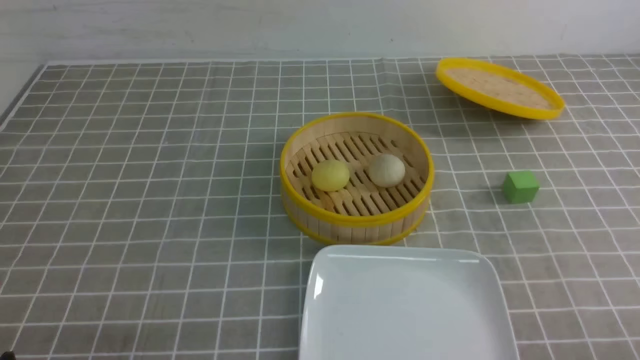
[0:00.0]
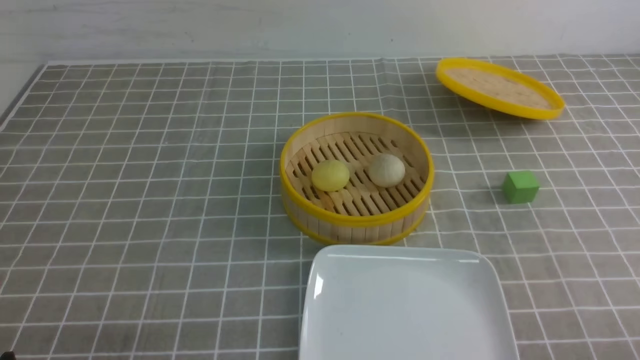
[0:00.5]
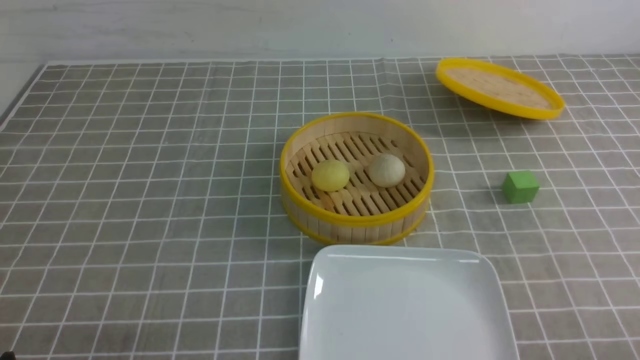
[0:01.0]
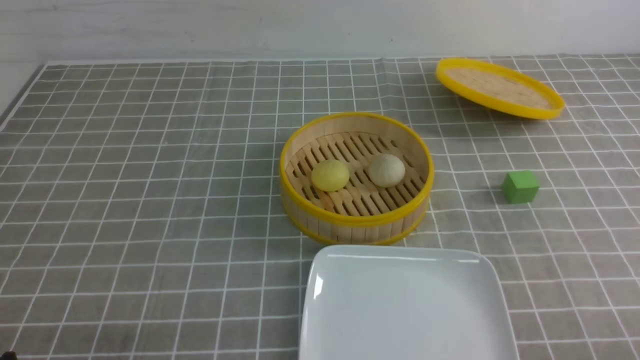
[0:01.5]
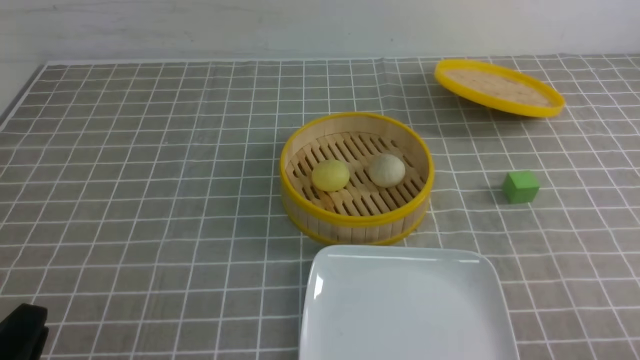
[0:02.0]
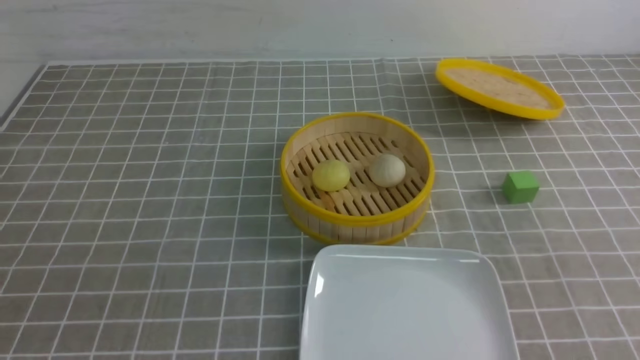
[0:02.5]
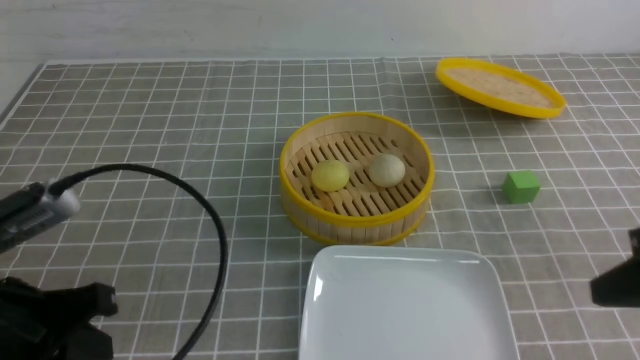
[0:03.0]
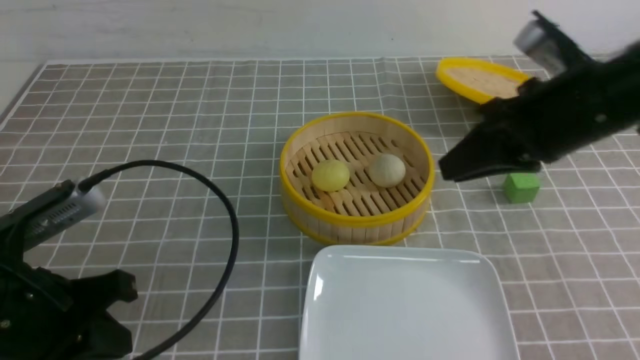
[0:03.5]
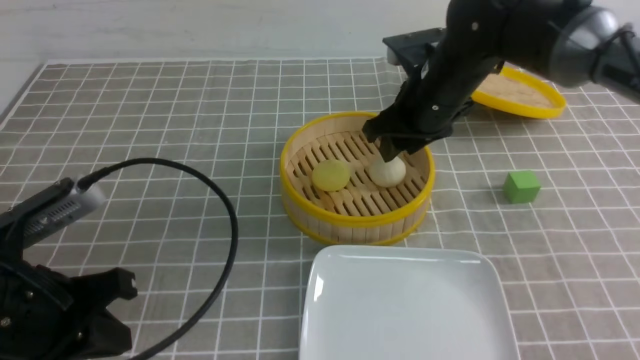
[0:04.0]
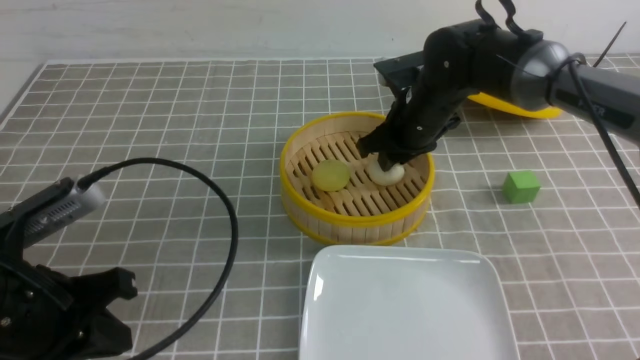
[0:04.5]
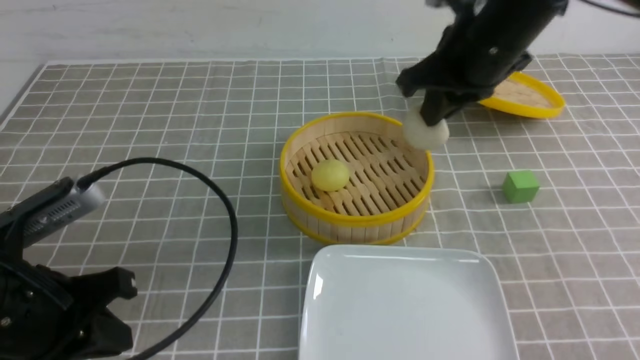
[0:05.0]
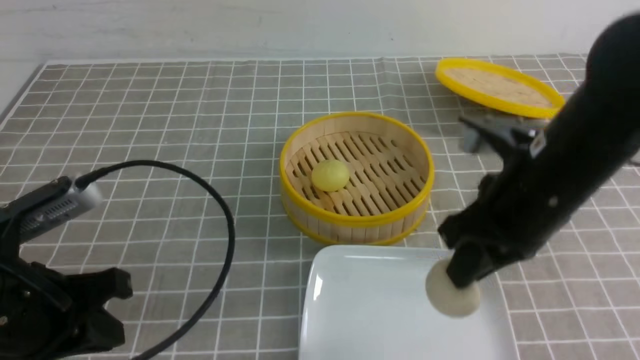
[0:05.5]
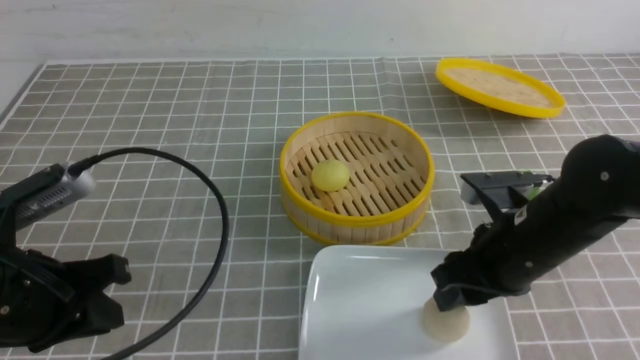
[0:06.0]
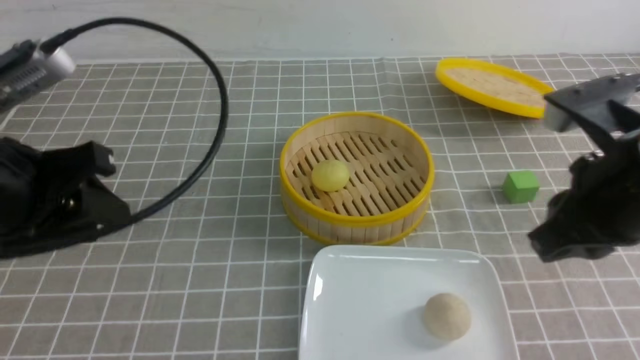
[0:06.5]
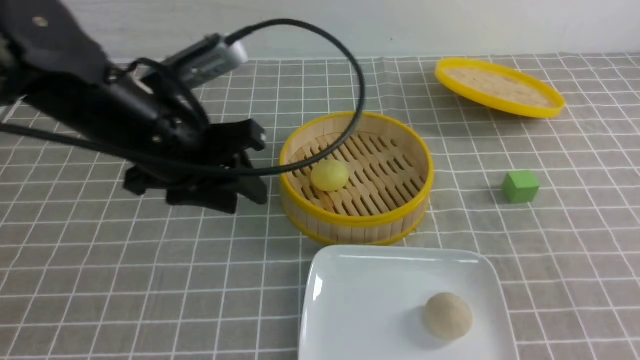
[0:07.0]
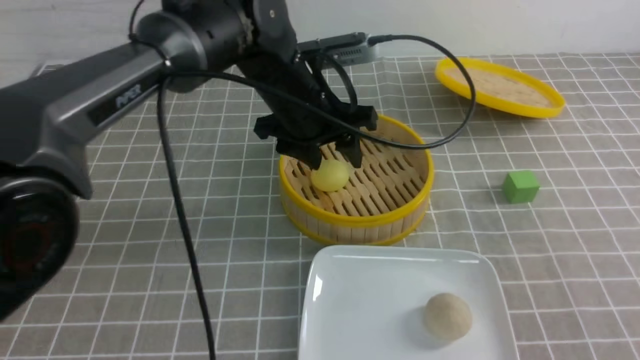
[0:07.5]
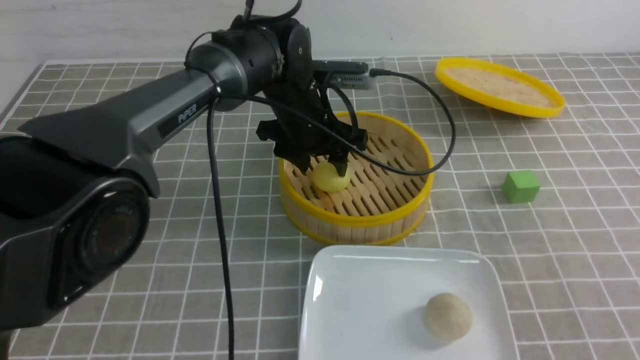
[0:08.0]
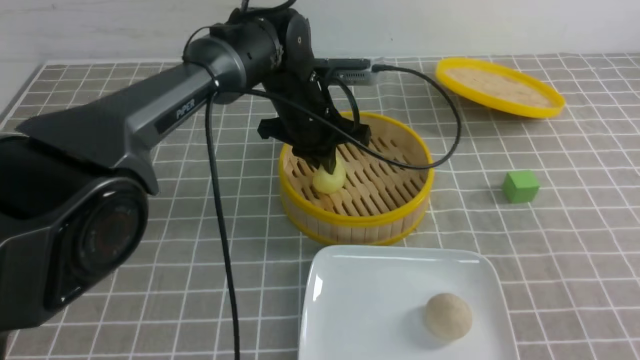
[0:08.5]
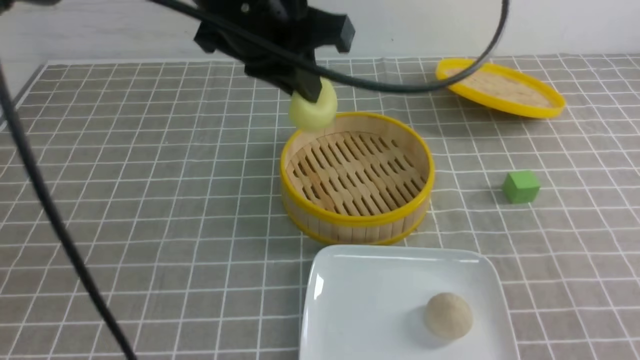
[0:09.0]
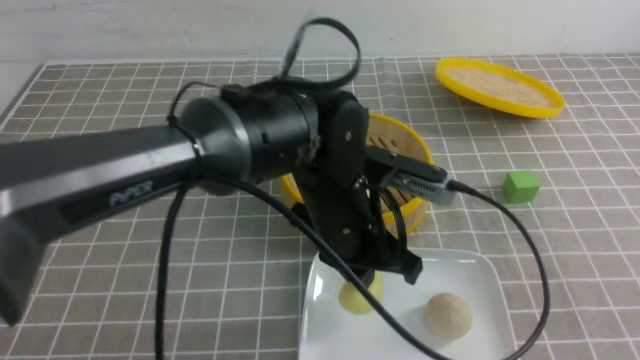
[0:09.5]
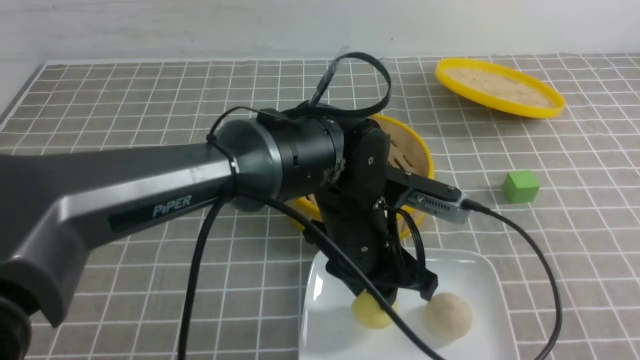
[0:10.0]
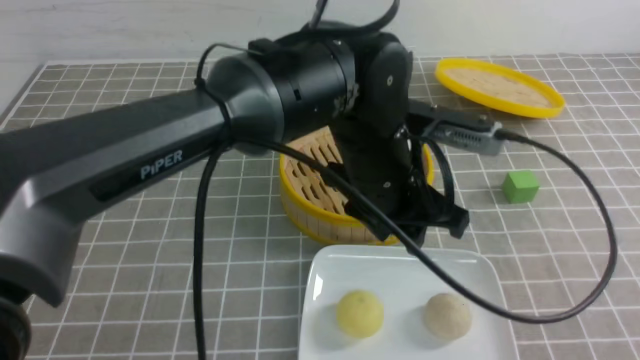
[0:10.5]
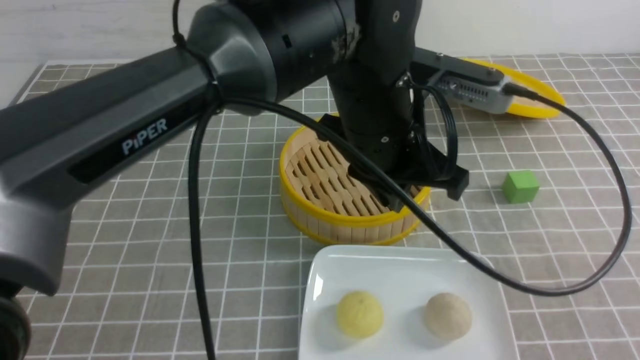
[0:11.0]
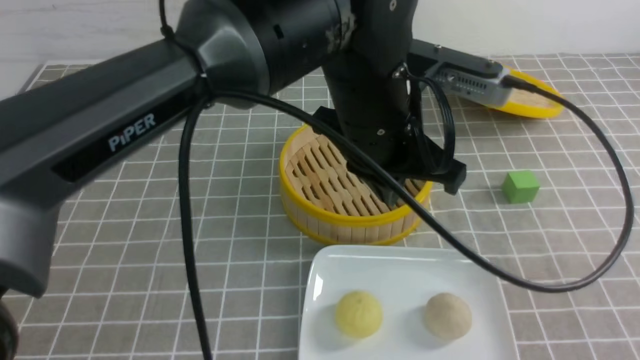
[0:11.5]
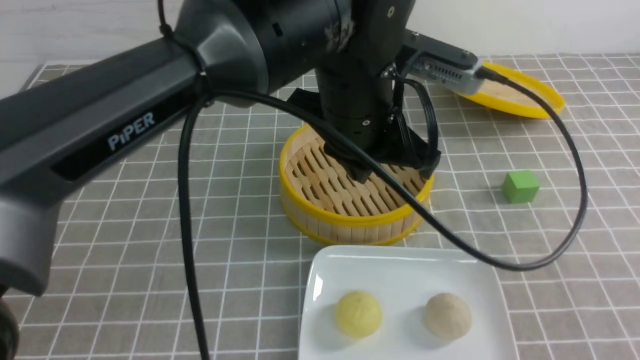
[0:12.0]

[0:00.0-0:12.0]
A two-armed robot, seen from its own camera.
Step, 0:00.0 to 0:04.5: use the right arm to grab the steamed stuffed bun that is closest to it.
Step, 0:05.0 to 0:06.0: use the right arm to put the steamed stuffed bun into the plate.
Step, 0:06.5 to 0:08.5: use the left arm to grab the steamed stuffed bun that is closest to it.
Step, 0:09.0 to 0:10.0: use the left arm to put the steamed stuffed bun into the plate.
0:02.0 to 0:04.0: The left gripper goes roughly 10 cm forward and upward, and closes its fingers; the right gripper moves forward and to the left, about 40 cm, and closes, then reopens.
0:04.0 to 0:06.0: The right gripper is displaced backward by some 15 cm, and closes, then reopens.
0:06.0 to 0:08.0: The left gripper moves forward and to the right, roughly 35 cm, and opens its fingers; the right gripper shifts approximately 25 cm backward, to the right and upward, and closes up.
0:08.0 to 0:10.0: The left gripper heads backward, covering about 15 cm, and closes, then opens again.
0:10.0 to 0:12.0: The left gripper heads upward, covering about 15 cm, and closes up, while the right gripper goes some 5 cm downward.

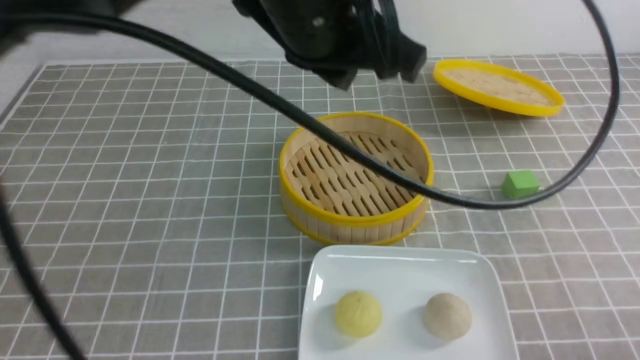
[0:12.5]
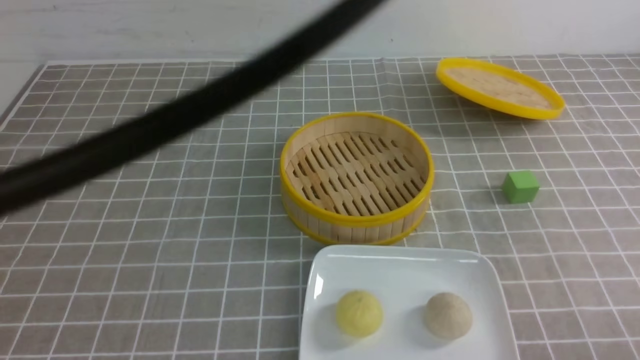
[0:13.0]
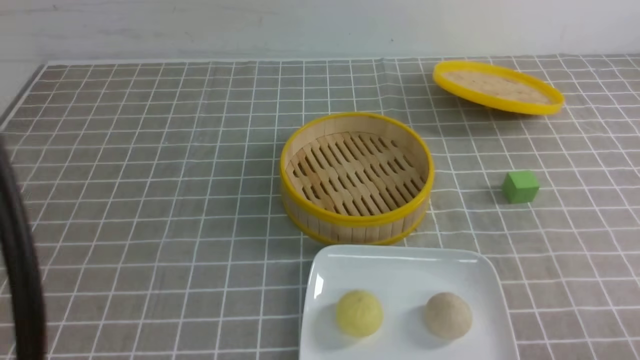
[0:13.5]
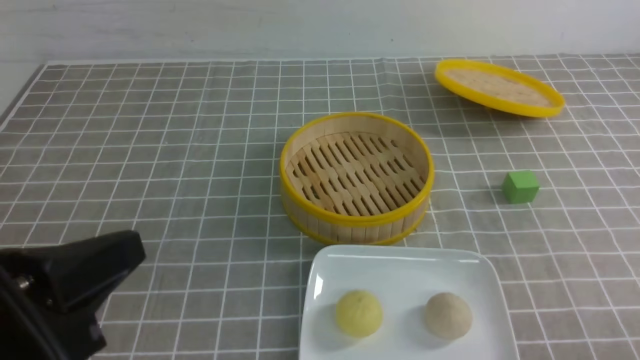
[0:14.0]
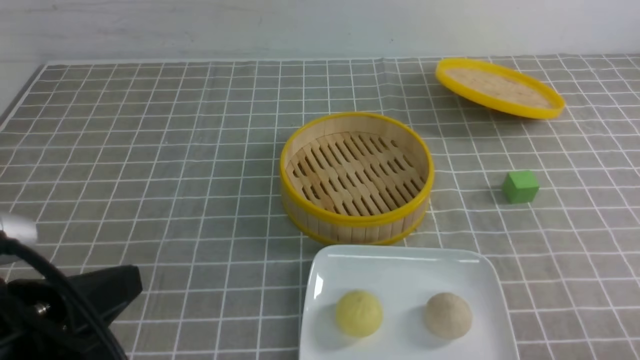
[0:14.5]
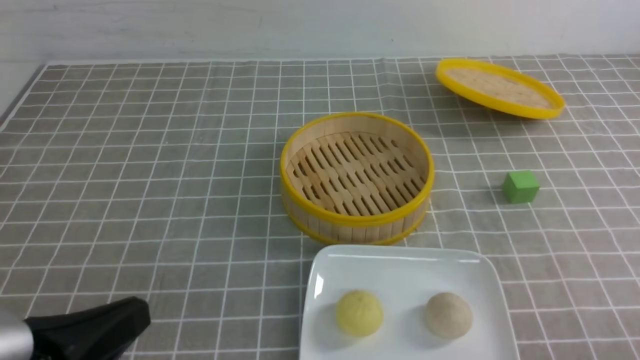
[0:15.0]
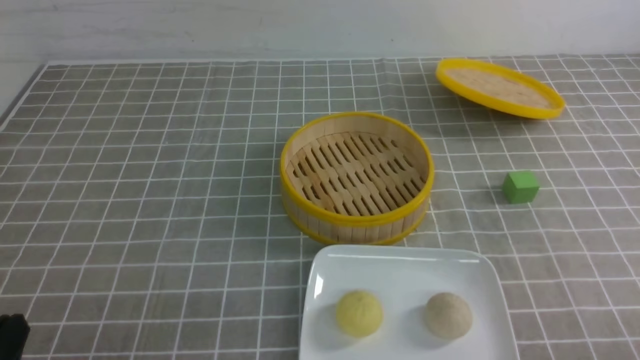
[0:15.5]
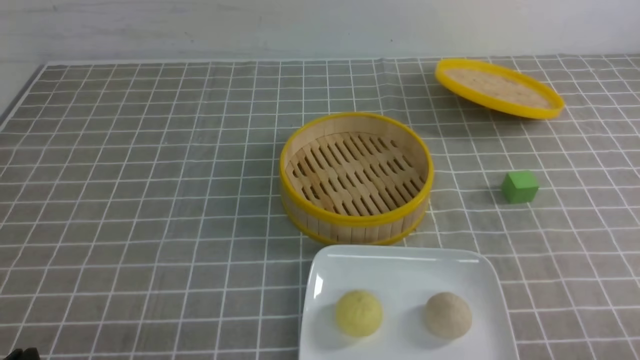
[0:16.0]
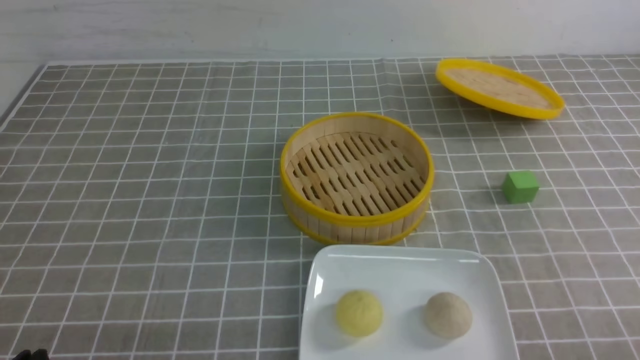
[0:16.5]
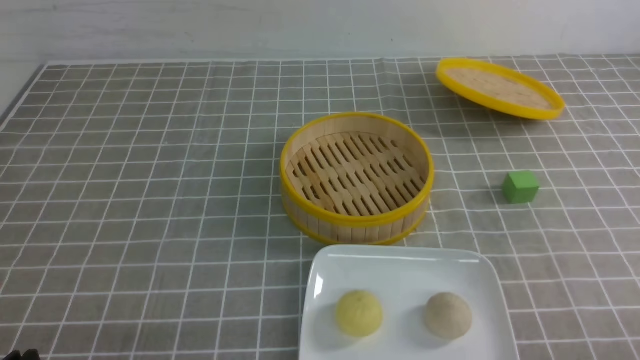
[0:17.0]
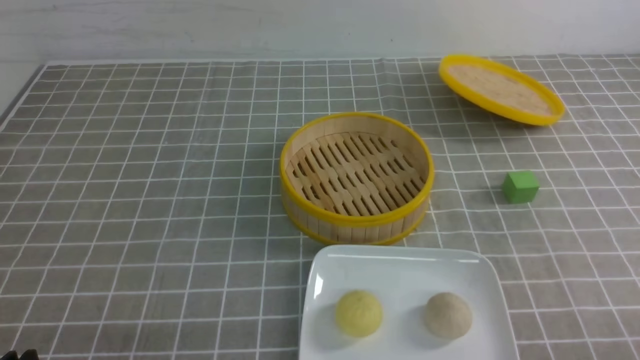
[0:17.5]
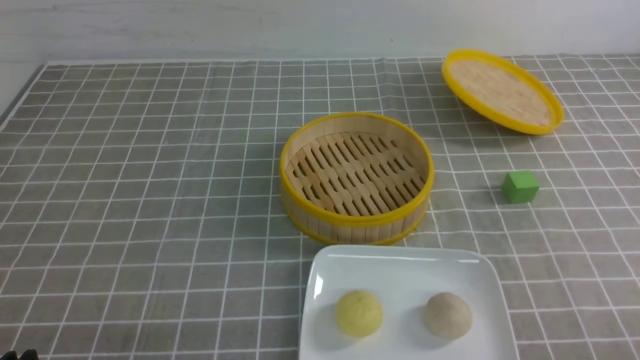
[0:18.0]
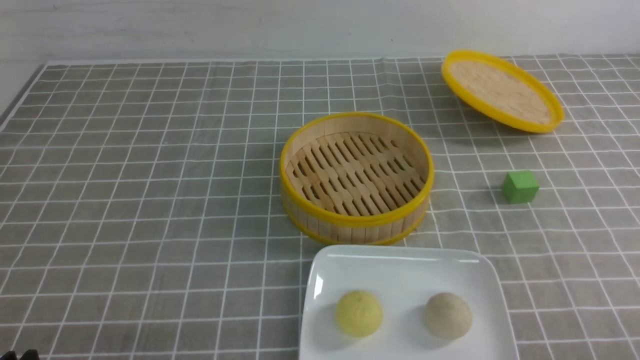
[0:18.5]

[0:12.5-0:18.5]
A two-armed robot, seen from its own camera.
0:12.5 to 0:14.5: The left gripper is displaced to the left, backward and downward by roughly 30 cm.
0:14.5 to 0:16.5: The left gripper moves downward and to the left, some 15 cm.
0:16.5 to 0:18.5: Neither gripper changes place.
